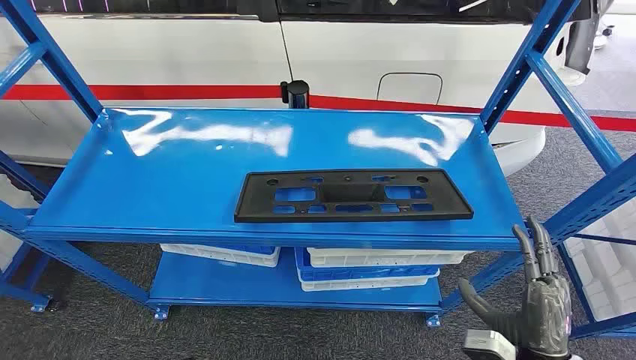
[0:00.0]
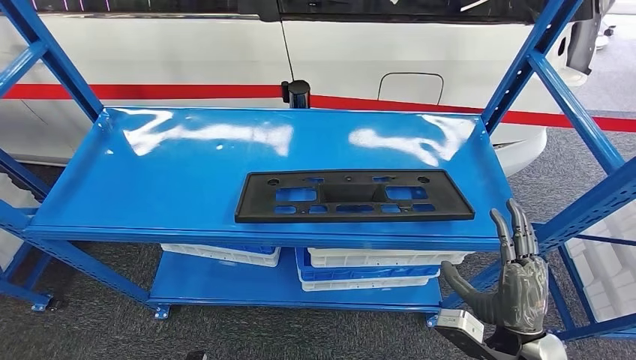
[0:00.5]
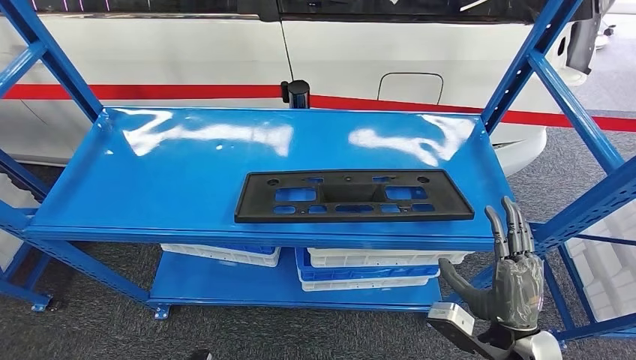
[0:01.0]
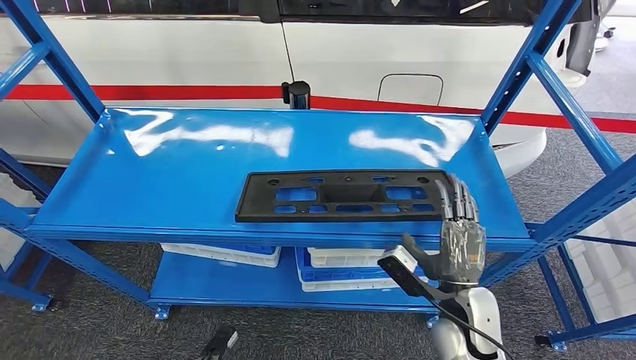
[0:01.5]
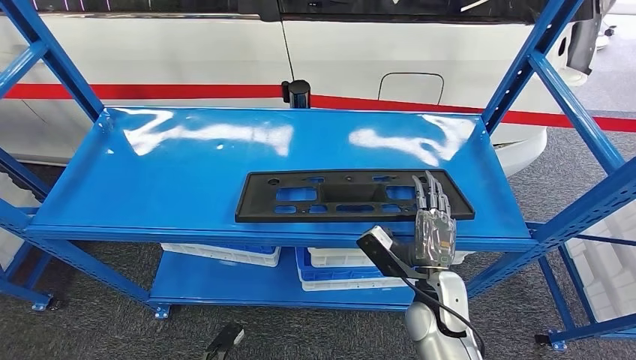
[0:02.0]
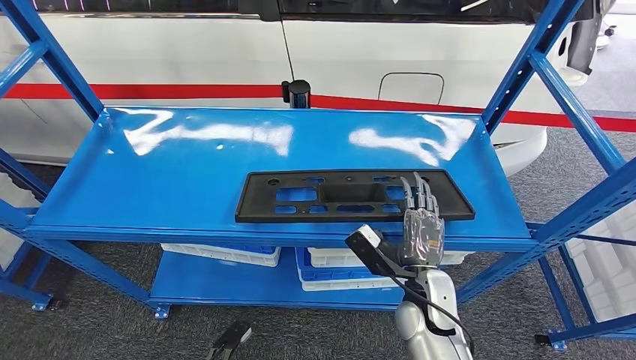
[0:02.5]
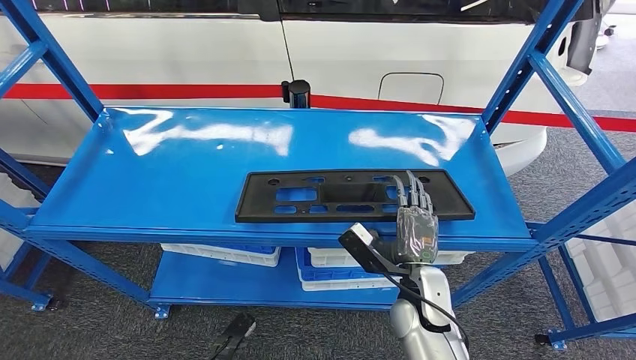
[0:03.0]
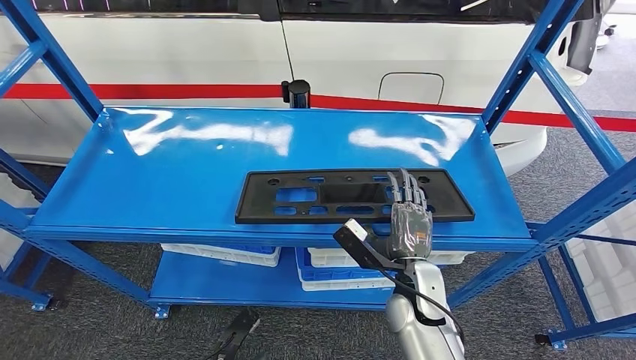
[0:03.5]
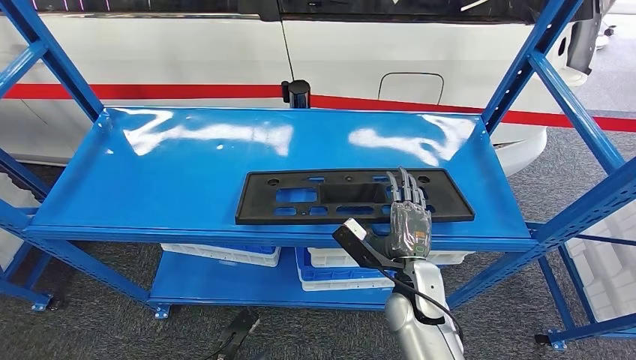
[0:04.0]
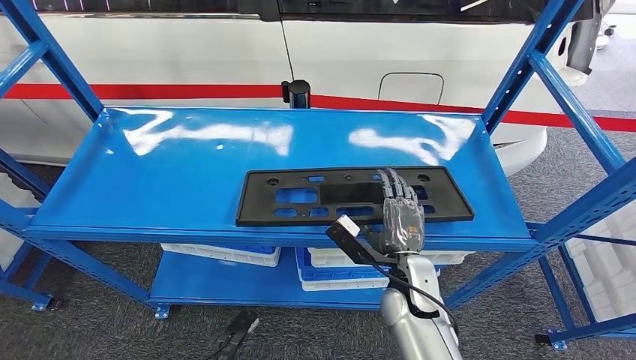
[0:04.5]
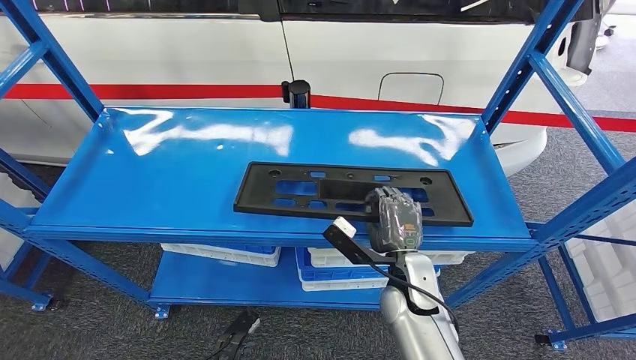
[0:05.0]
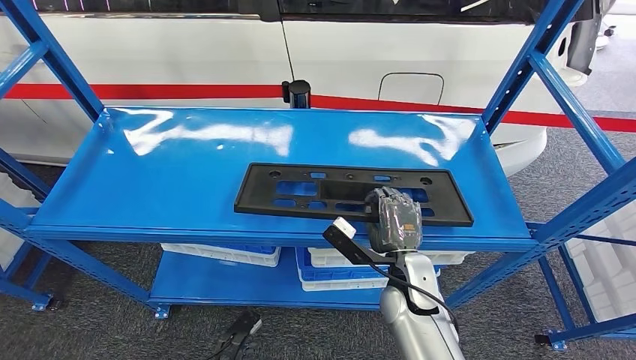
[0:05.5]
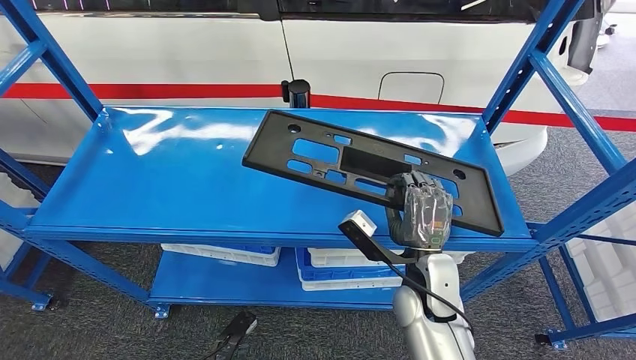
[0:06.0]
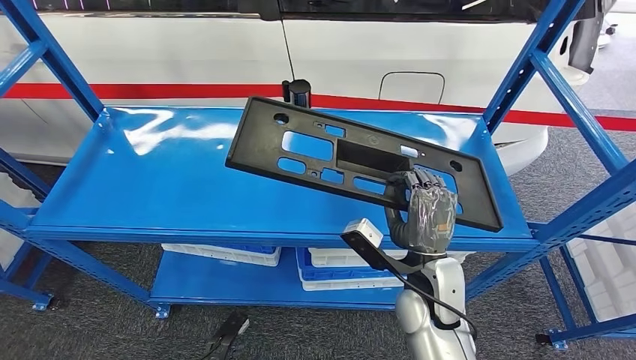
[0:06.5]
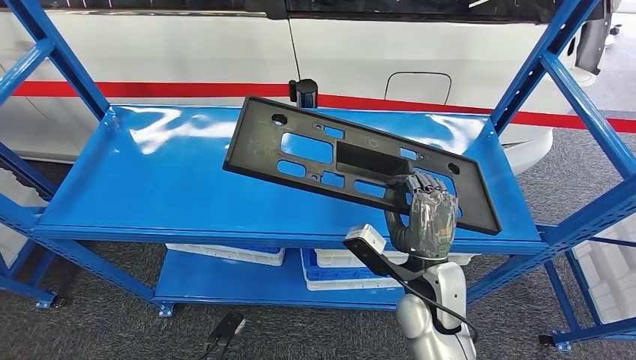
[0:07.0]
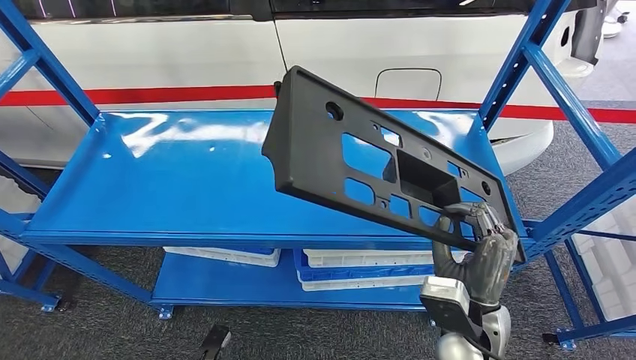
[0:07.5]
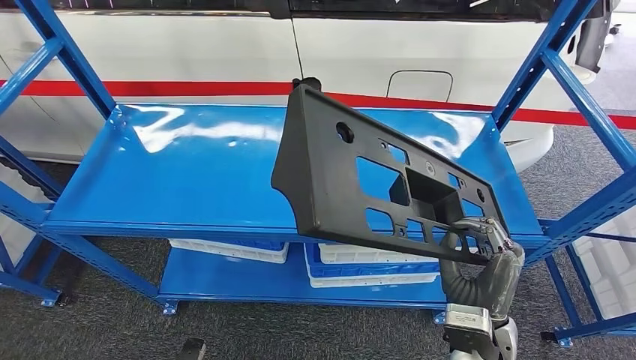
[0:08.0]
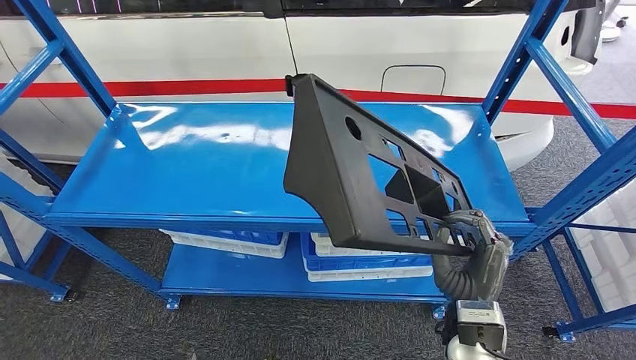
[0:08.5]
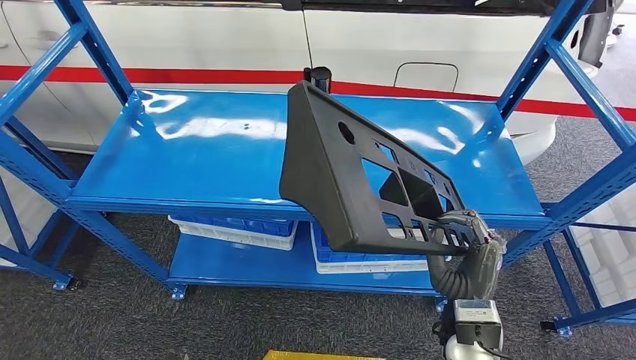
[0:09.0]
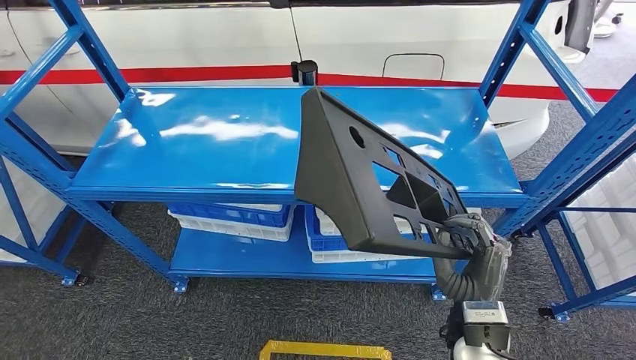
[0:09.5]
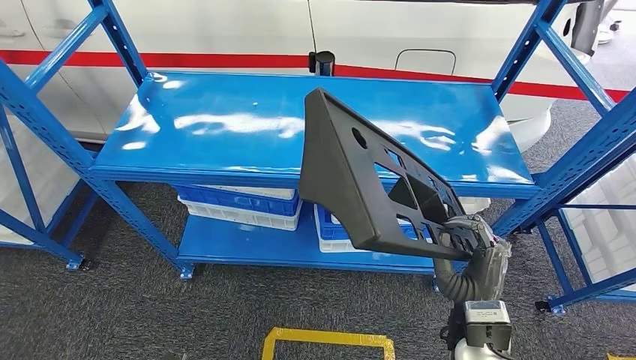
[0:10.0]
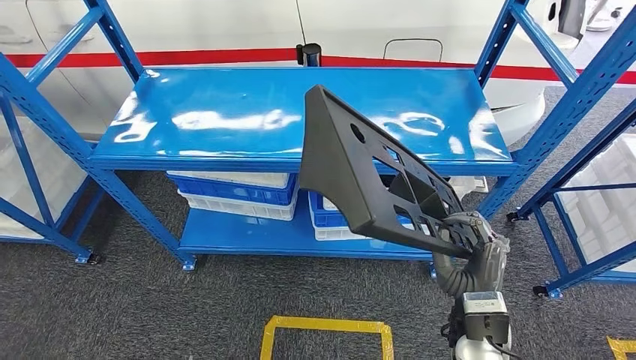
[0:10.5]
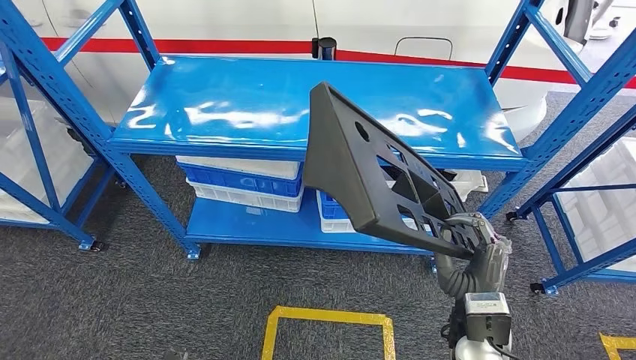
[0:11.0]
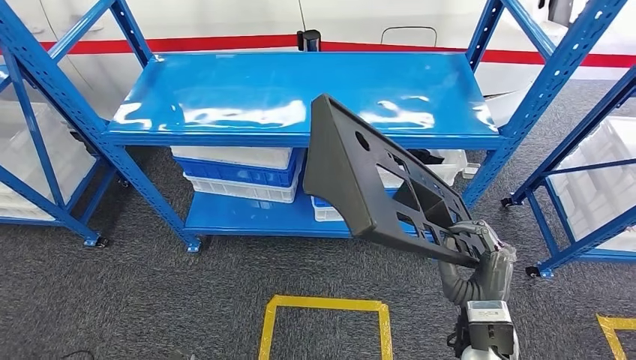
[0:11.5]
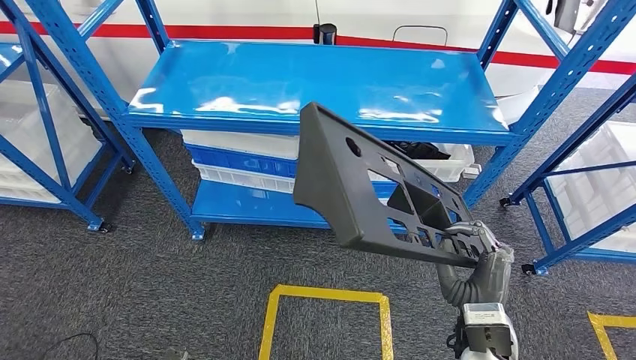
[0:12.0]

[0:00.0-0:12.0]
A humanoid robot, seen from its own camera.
Step, 0:00.0 to 0:10.0: Pick up the large material from the shelf.
0:04.0 to 0:06.0: The hands move only a little.

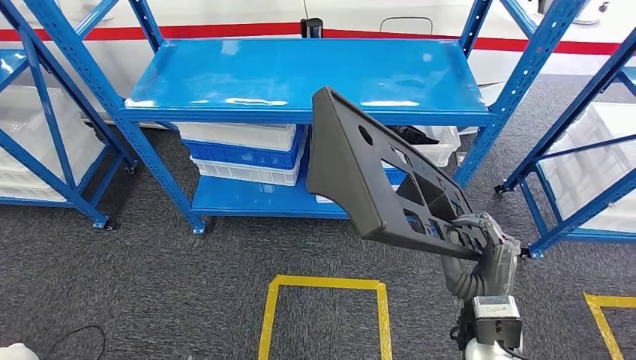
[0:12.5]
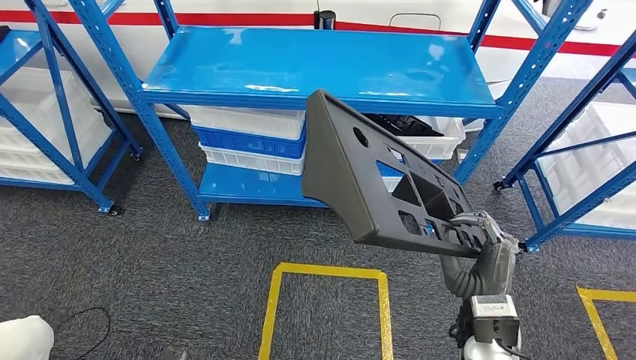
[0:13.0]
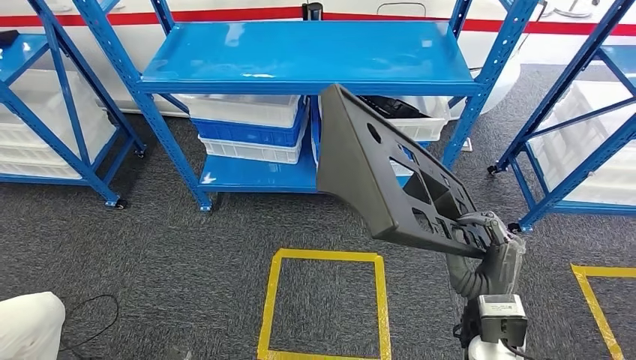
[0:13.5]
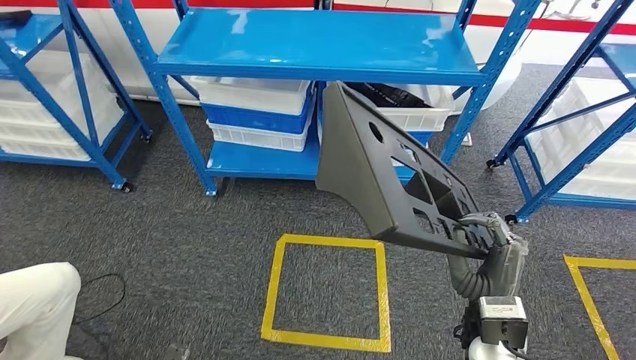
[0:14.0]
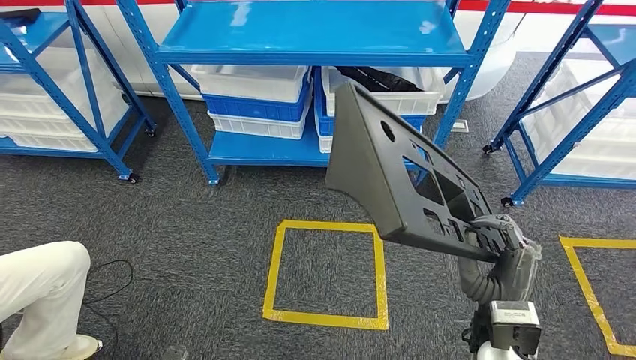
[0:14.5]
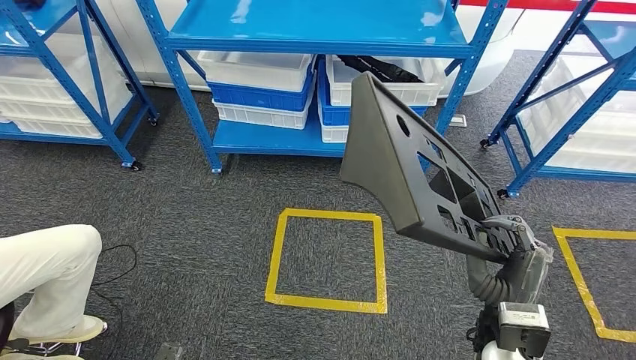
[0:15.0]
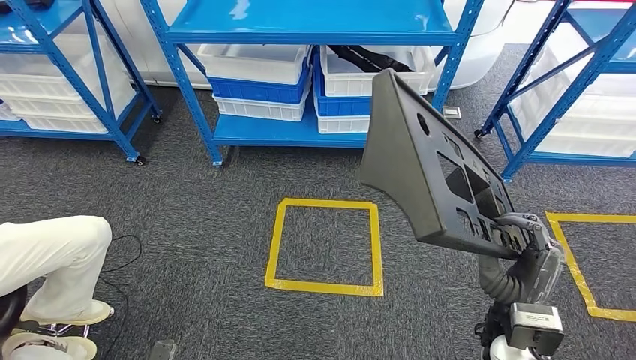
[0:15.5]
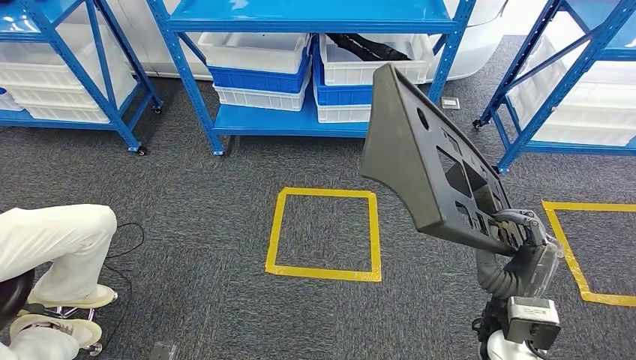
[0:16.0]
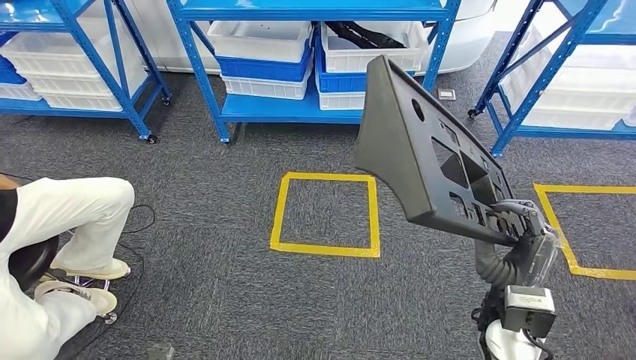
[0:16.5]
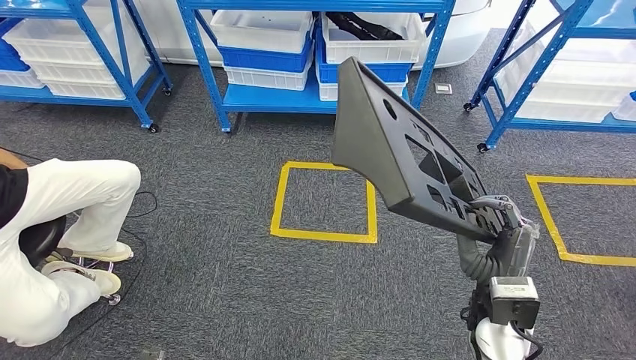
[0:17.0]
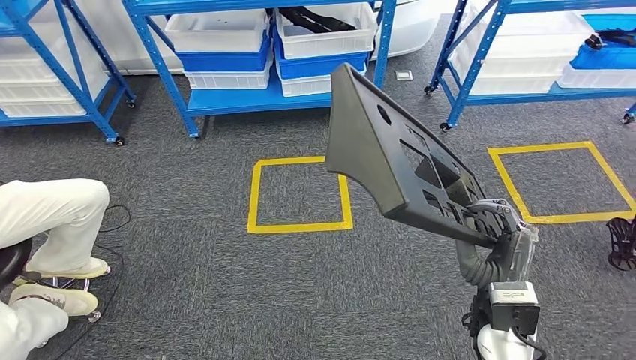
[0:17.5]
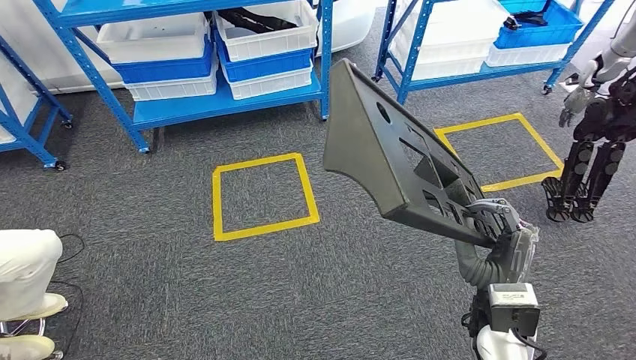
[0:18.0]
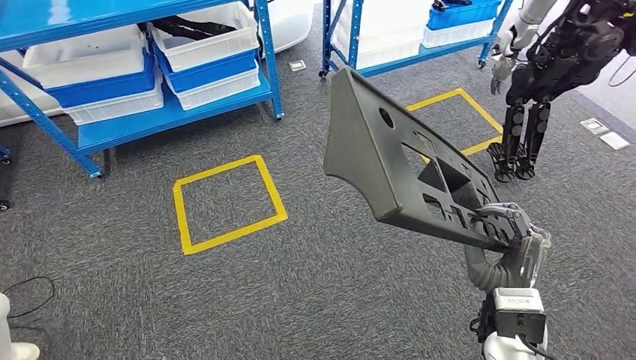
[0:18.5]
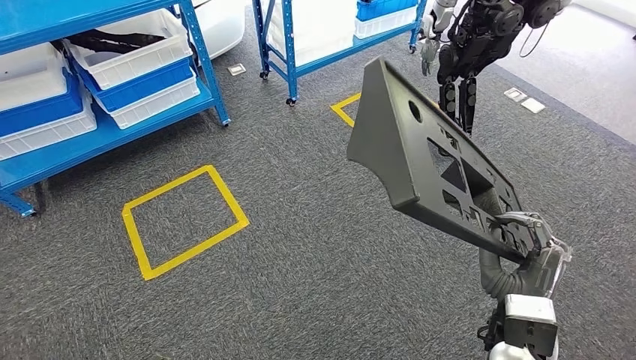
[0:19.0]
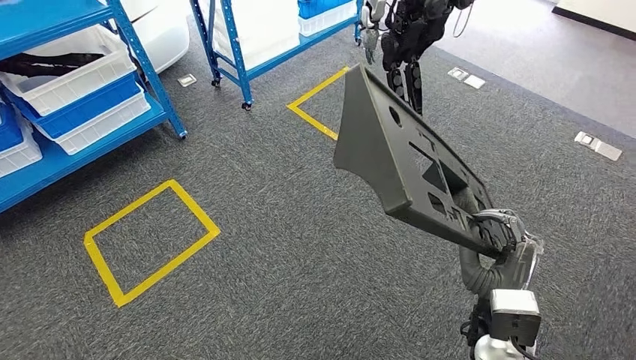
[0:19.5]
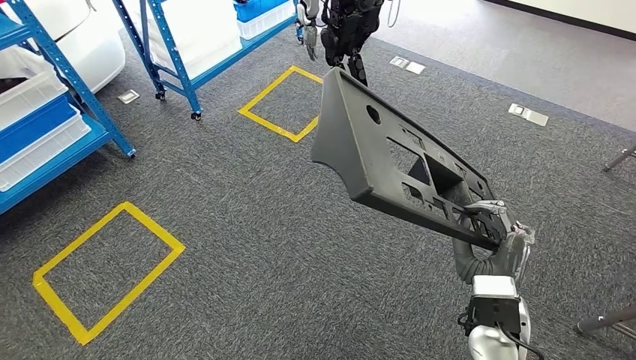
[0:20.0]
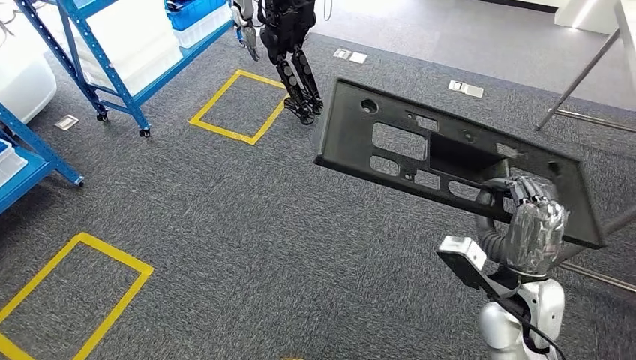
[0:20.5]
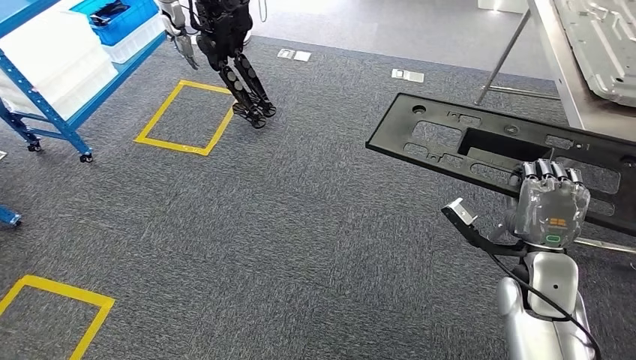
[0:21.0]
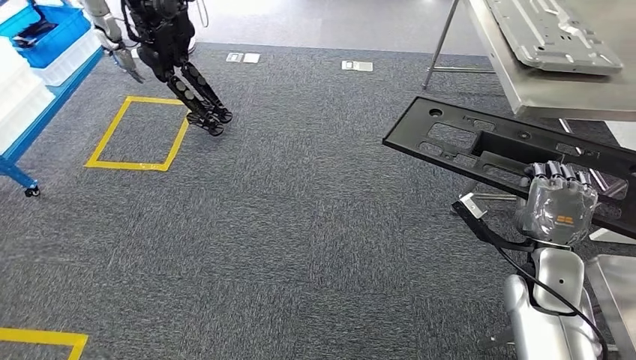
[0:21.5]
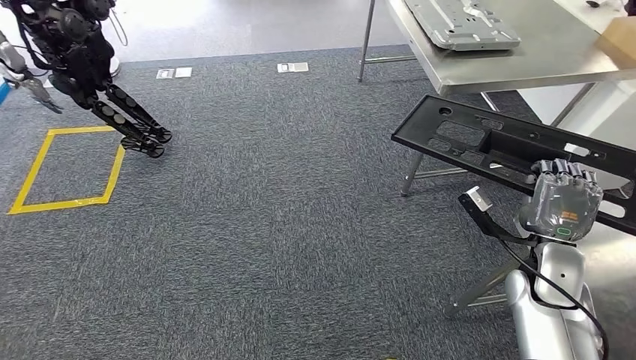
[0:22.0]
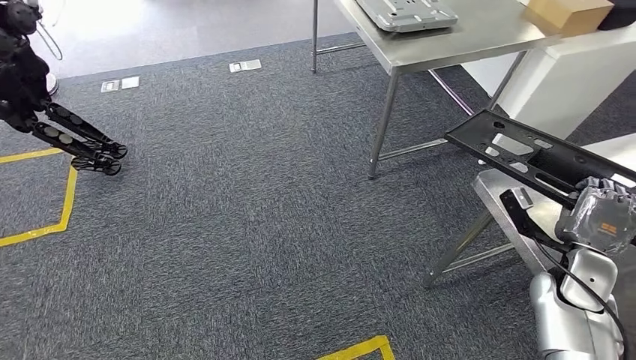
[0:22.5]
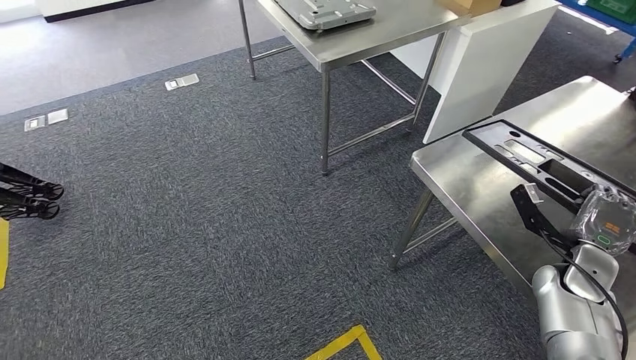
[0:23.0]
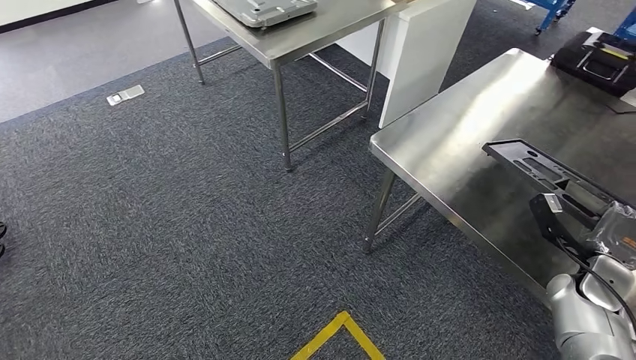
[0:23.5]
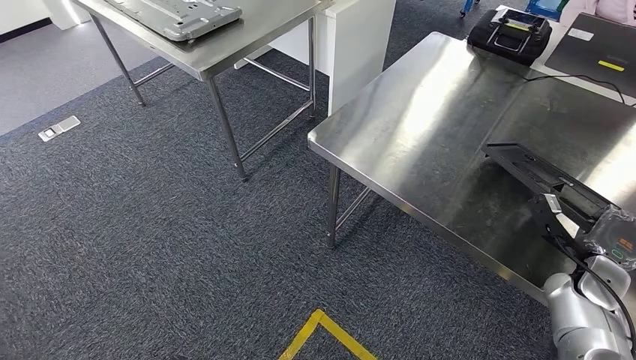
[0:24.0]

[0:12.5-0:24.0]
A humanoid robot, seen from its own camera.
Step, 0:12.5 to 0:23.5: Move the large material to the workbench.
